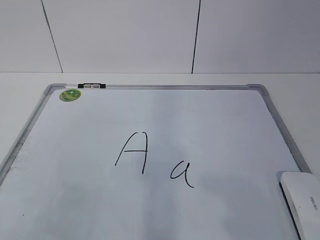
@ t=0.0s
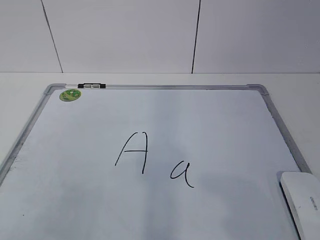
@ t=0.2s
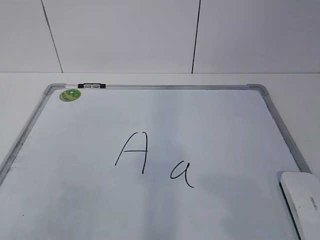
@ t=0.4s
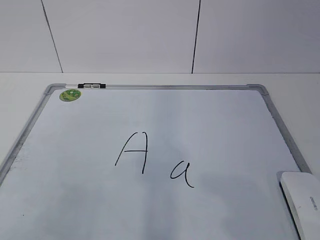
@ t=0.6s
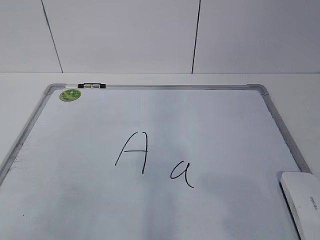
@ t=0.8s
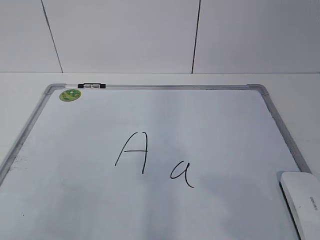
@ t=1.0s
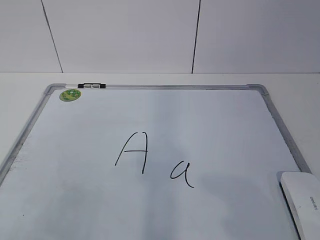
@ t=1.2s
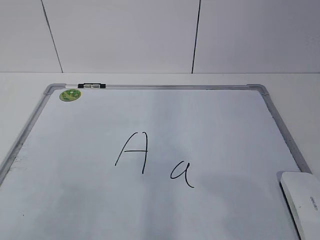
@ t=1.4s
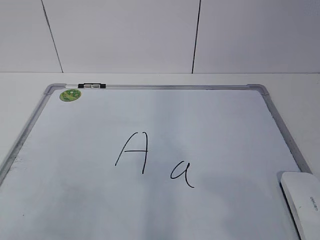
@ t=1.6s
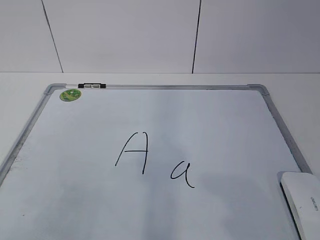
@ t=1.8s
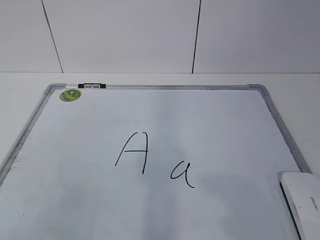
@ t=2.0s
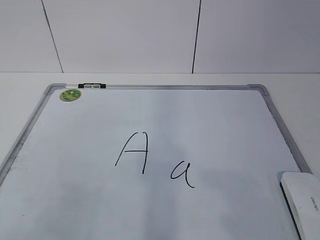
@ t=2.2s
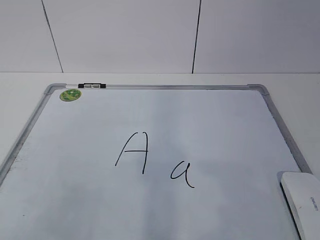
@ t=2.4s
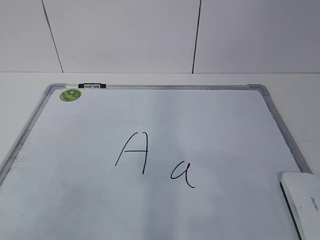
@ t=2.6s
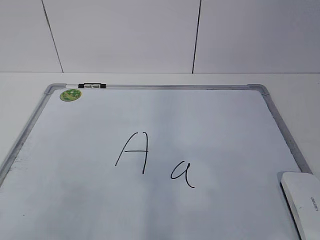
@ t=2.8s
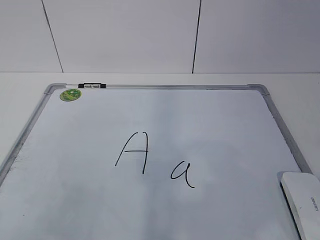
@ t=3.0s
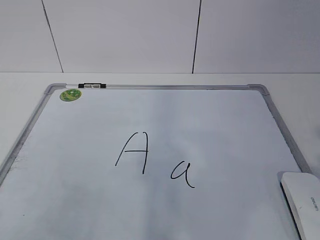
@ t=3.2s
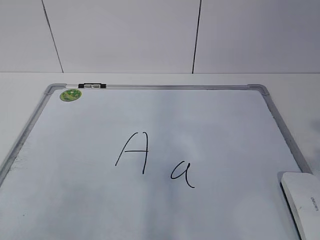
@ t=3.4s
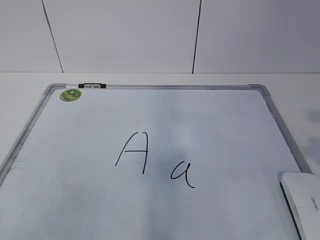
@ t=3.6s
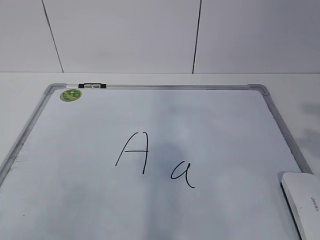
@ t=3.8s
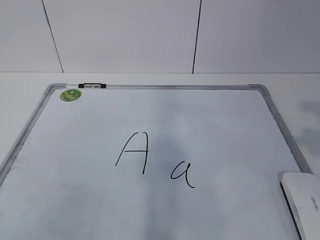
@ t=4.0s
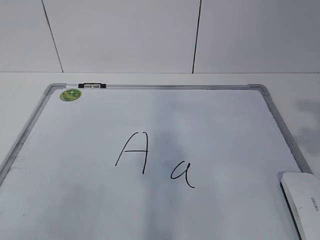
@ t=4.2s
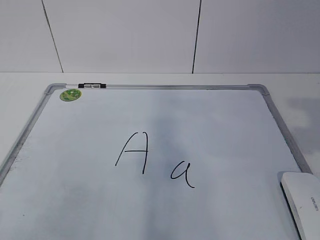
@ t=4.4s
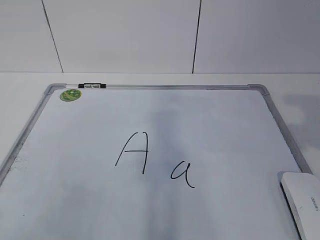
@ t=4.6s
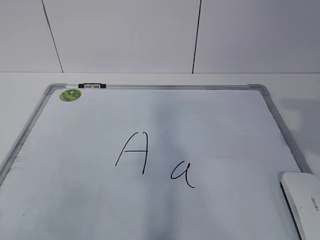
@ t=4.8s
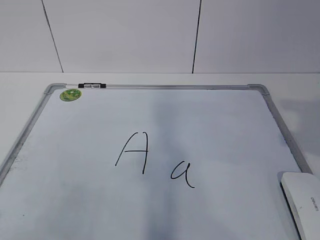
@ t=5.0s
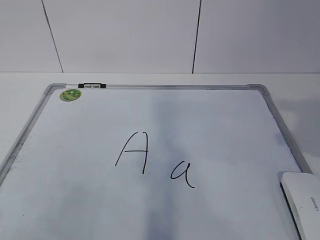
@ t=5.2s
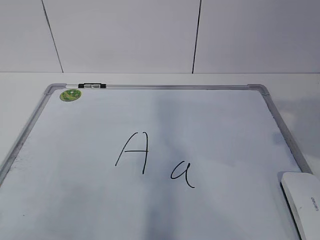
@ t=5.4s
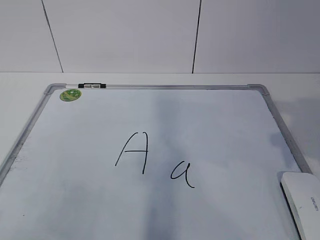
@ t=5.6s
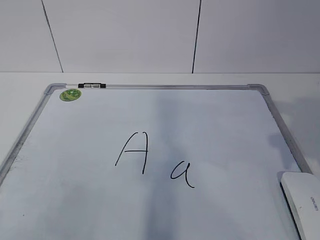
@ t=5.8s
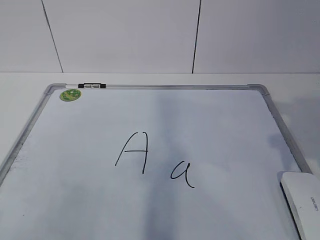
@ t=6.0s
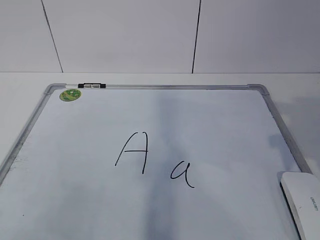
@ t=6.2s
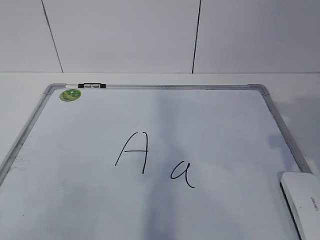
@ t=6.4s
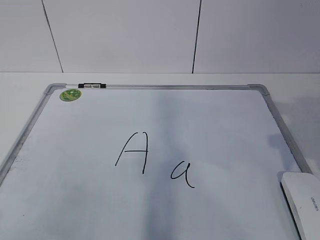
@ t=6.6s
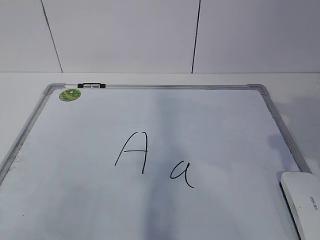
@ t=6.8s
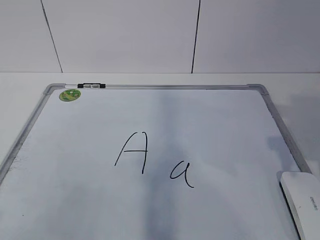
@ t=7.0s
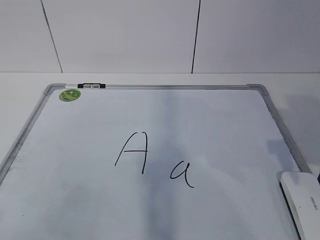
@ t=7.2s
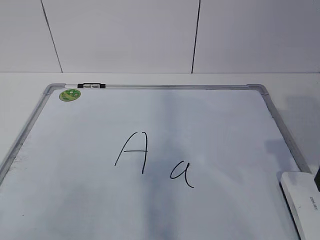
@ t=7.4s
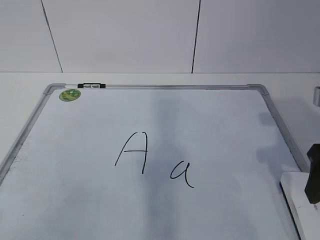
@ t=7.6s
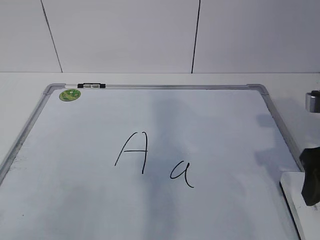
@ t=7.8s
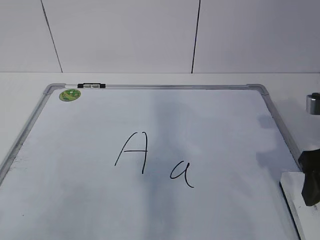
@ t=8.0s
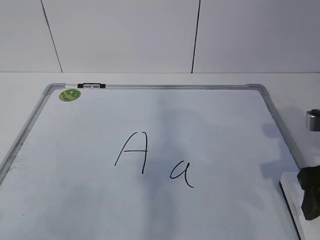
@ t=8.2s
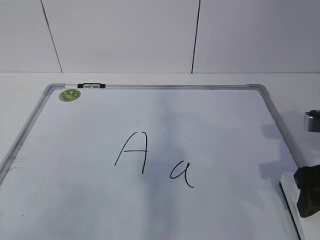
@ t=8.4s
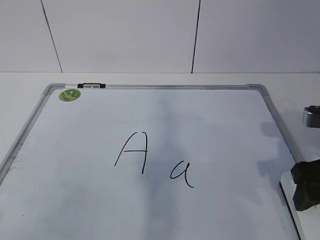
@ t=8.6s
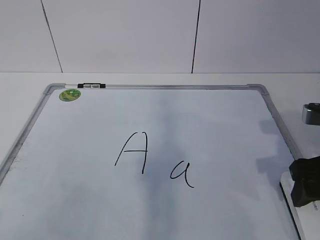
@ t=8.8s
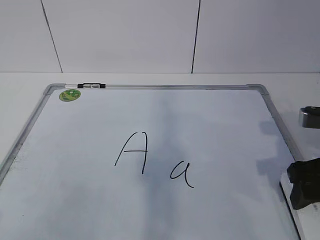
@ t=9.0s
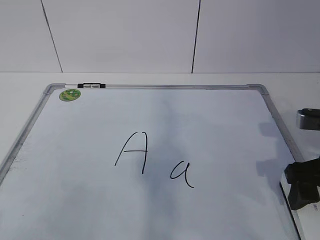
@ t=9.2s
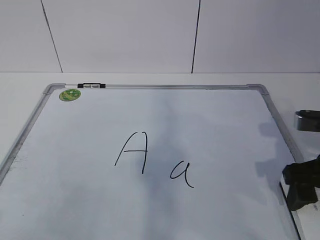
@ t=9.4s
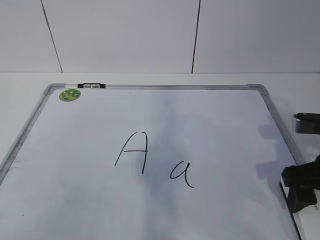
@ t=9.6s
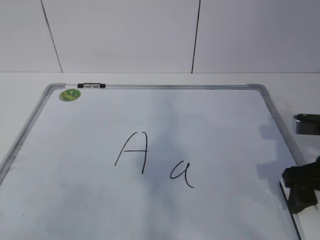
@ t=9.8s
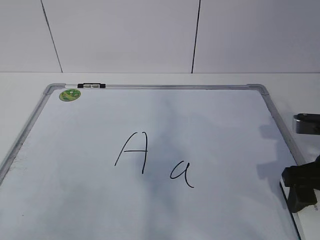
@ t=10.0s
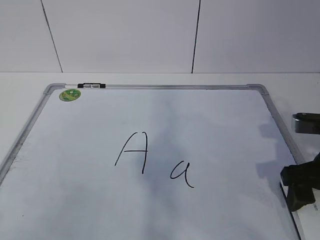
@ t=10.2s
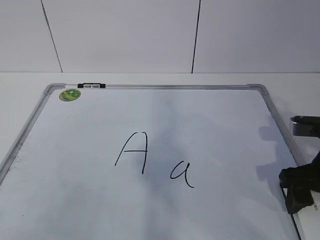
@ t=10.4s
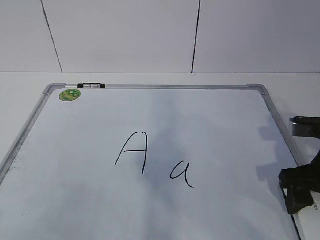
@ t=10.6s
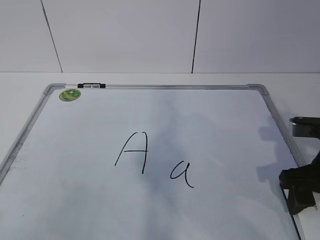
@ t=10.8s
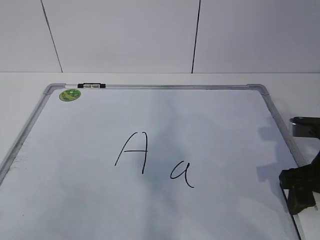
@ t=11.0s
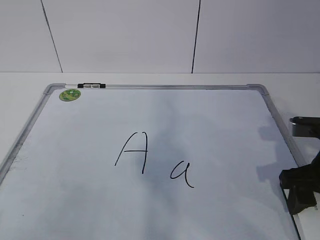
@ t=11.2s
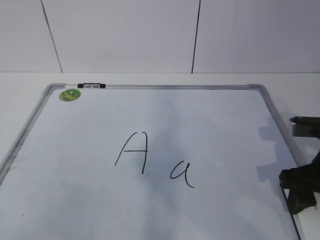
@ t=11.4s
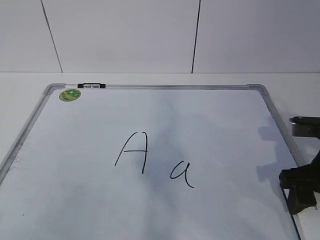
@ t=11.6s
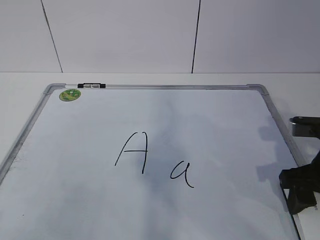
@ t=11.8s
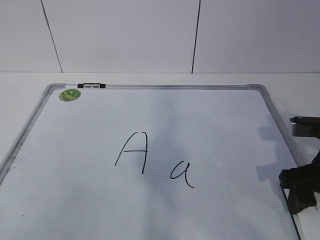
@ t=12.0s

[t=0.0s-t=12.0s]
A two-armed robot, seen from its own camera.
Task of the whole recording: pick up the eraser on the blackboard and erase the letter "a".
Step, t=0.0s to t=10.0s: Grab the eraser with your right hand.
t=6.0s to t=7.6s: The right gripper closes and opens again.
t=7.6s to t=9.0s: The grippers move only a little.
t=9.0s to t=10.4s: The grippers make only small movements.

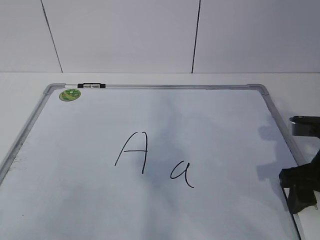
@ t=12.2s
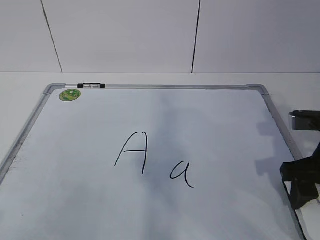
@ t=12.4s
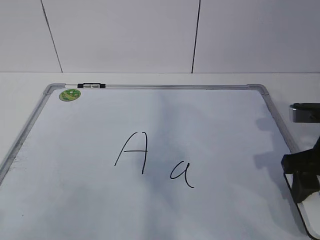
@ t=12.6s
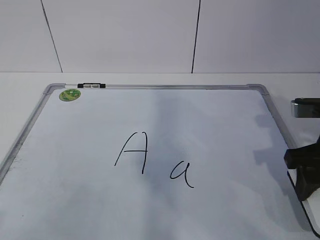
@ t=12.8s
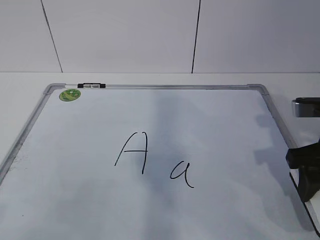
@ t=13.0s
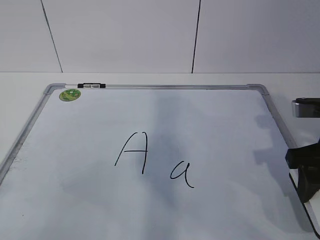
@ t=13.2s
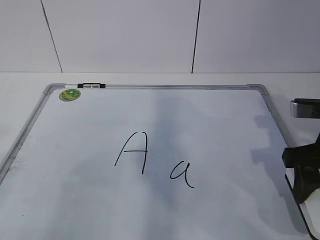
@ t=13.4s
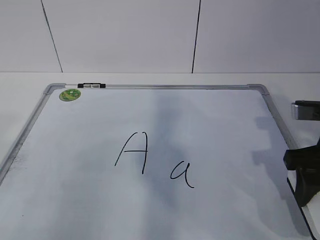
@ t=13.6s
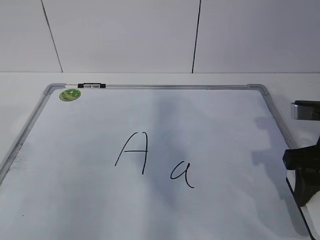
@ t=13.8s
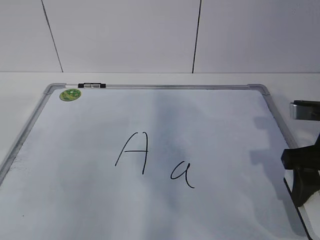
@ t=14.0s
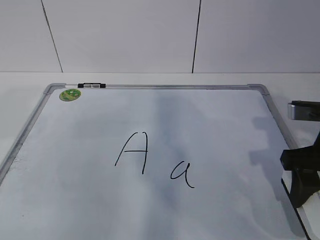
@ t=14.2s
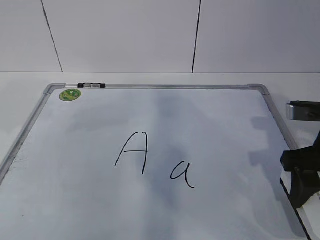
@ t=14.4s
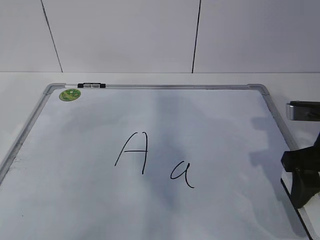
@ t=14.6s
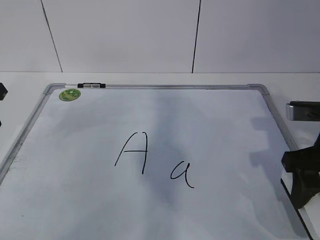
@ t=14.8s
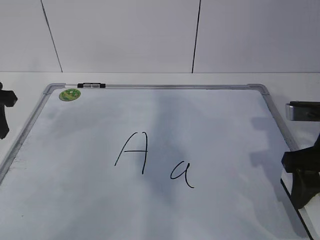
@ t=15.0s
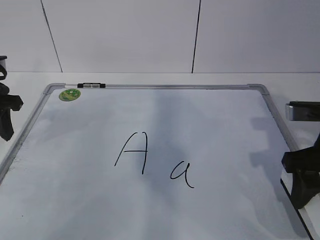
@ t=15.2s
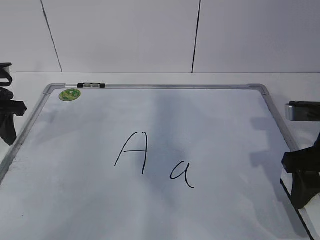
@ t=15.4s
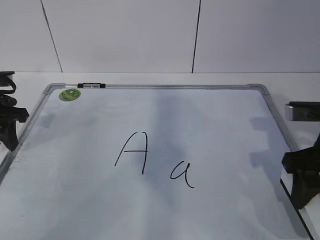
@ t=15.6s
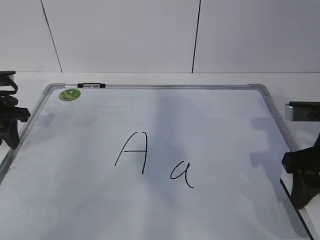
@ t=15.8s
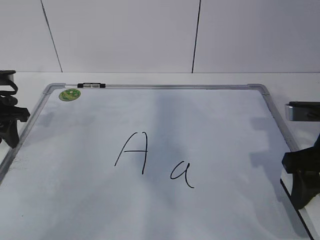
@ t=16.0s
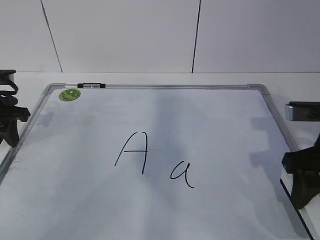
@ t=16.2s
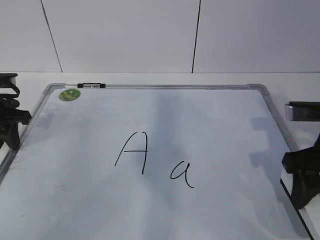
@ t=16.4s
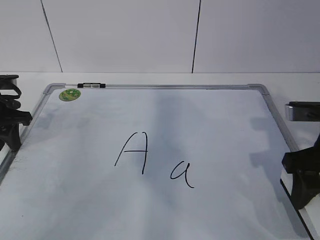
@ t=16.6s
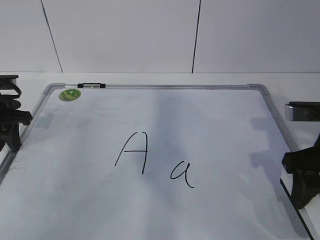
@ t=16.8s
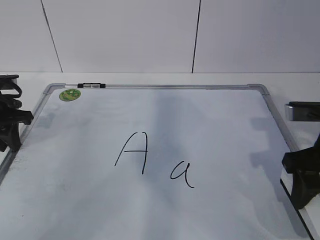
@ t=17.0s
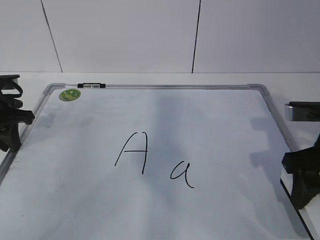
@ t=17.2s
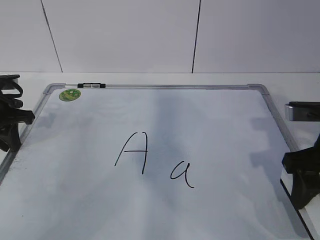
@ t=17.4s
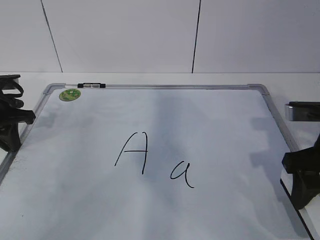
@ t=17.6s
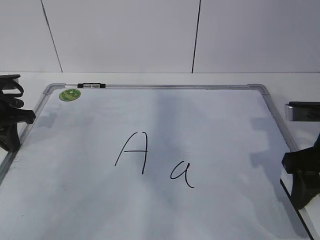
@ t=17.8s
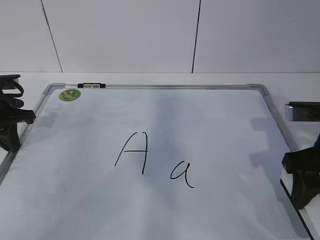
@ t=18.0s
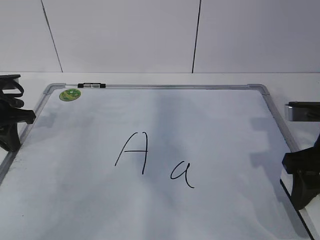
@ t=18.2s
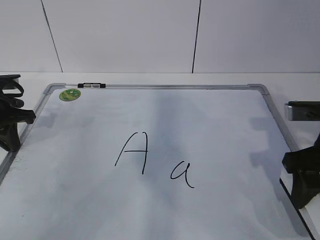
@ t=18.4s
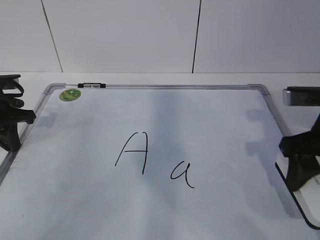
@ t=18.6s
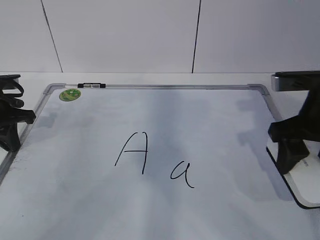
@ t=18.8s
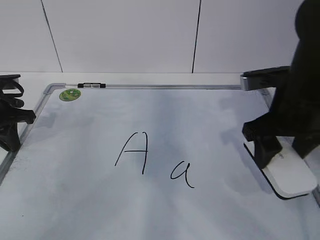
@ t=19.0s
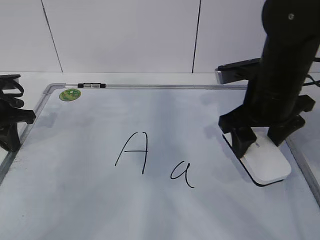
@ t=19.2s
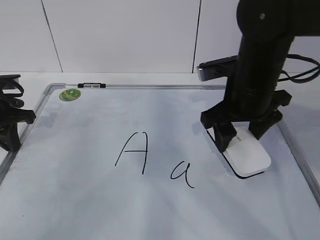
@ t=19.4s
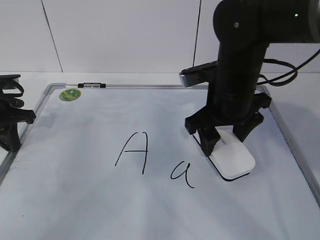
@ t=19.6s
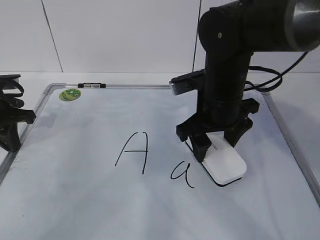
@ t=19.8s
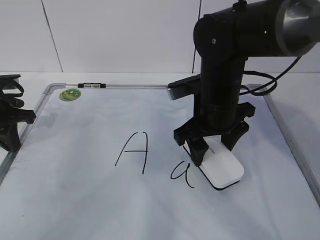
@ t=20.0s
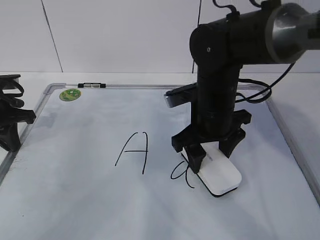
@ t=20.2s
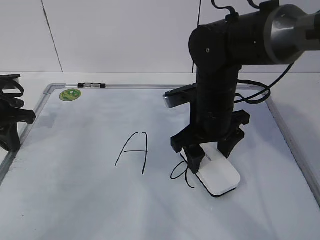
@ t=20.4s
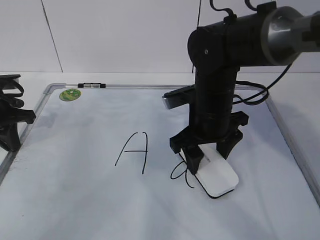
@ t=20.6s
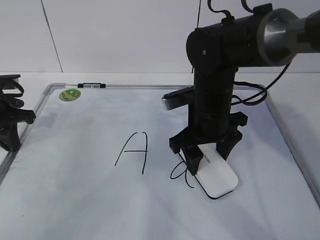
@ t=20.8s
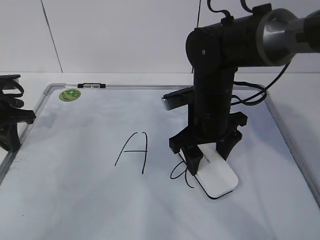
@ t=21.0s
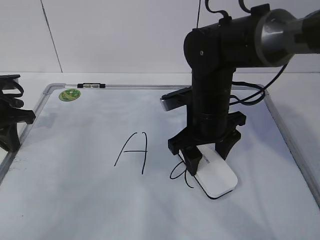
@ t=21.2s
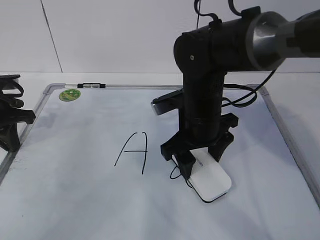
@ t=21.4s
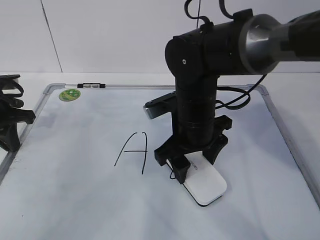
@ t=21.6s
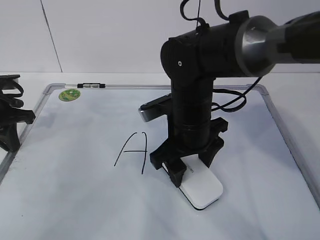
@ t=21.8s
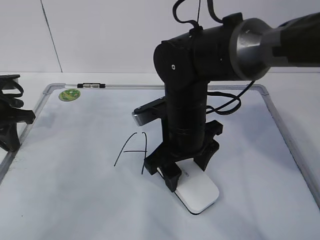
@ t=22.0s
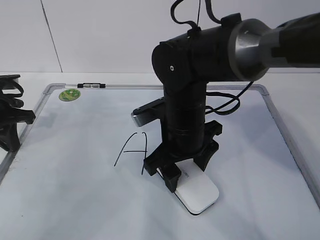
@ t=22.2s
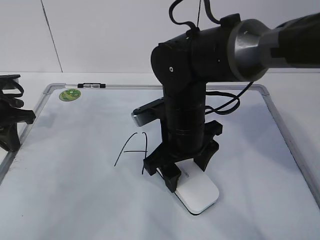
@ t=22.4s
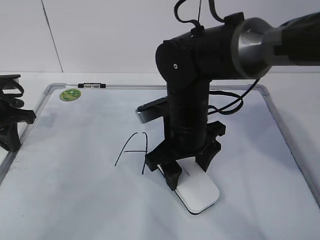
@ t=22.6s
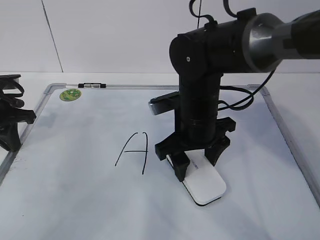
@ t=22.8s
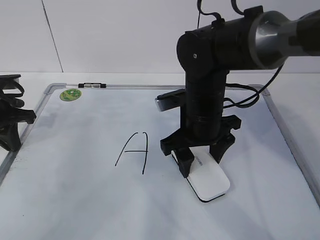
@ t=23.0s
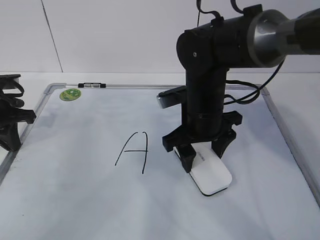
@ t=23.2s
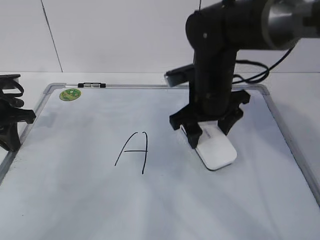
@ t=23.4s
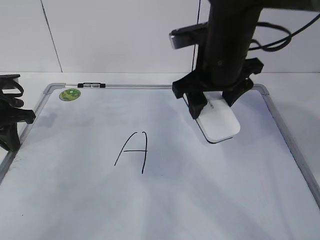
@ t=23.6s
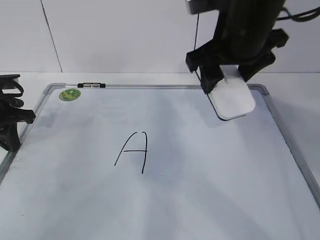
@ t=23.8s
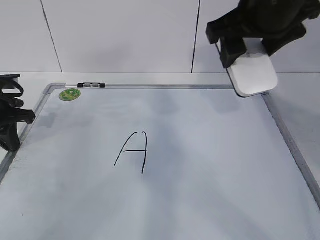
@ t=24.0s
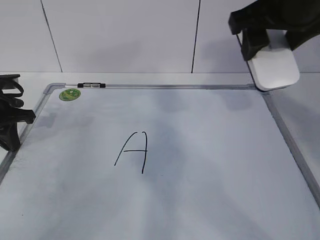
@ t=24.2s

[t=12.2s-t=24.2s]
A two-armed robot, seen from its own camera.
Task of the whole recording: pick up the eraser on the blackboard and erase the letter "a".
Step, t=12.2s to t=15.0s: Hold the drawing board steady with your left hand.
Step, t=15.2s to t=19.2s: Erase the letter a with your right hand.
Step, t=19.4s to t=23.4s: Put down the eraser with your right hand.
t=13.8s to t=15.2s: The left gripper moves forward and downward, roughly 25 cm.
t=15.2s to t=16.6s: The left gripper is displaced downward by approximately 5 cm.
t=16.6s to t=18.2s: The left gripper closes.
t=18.2s to t=19.8s: The right gripper travels to the left and forward by some 15 cm.
t=19.8s to t=21.2s: There are only small adjustments of the grippers.
t=21.2s to t=22.6s: The grippers stay close to where they were, moving slightly.
t=22.6s to t=24.2s: The right gripper goes roughly 20 cm upward and to the right.
